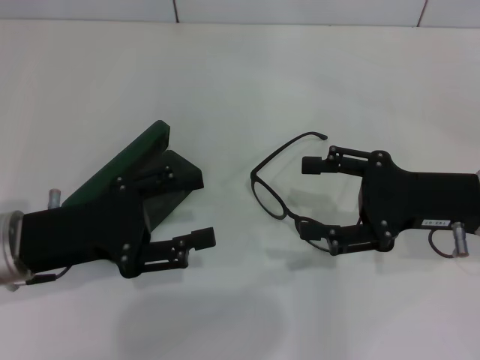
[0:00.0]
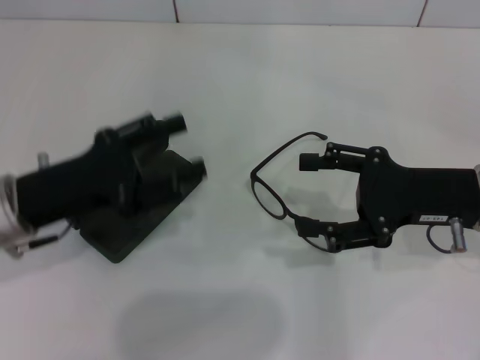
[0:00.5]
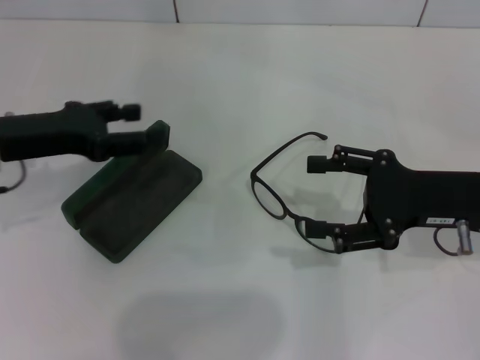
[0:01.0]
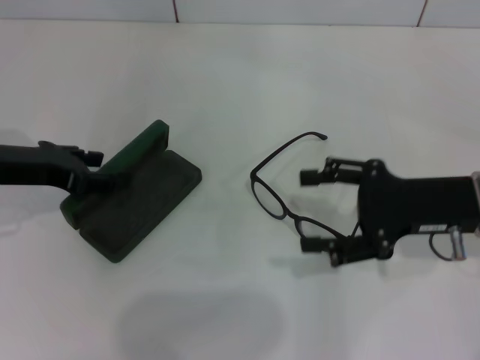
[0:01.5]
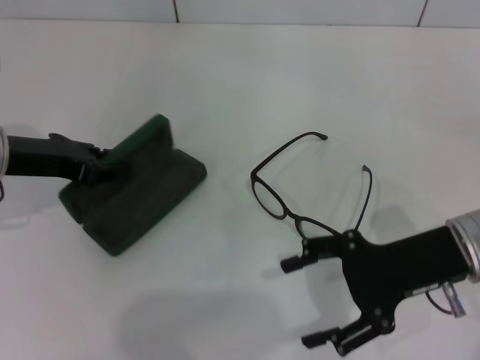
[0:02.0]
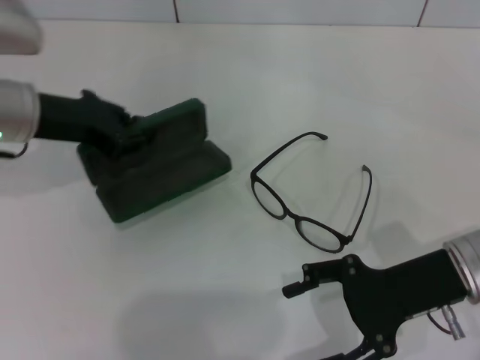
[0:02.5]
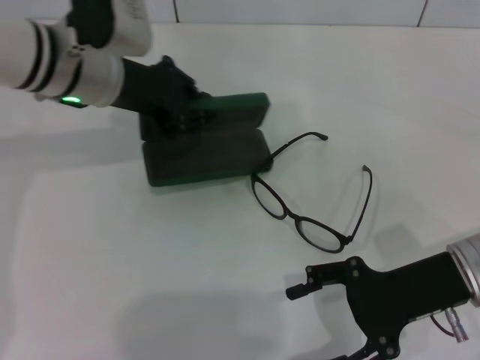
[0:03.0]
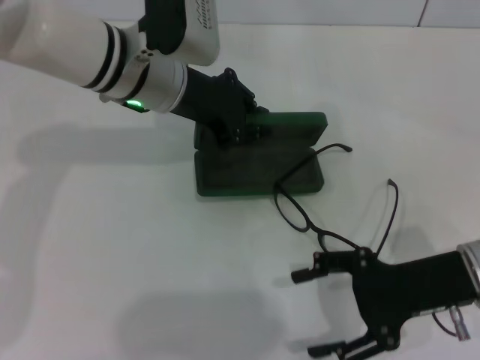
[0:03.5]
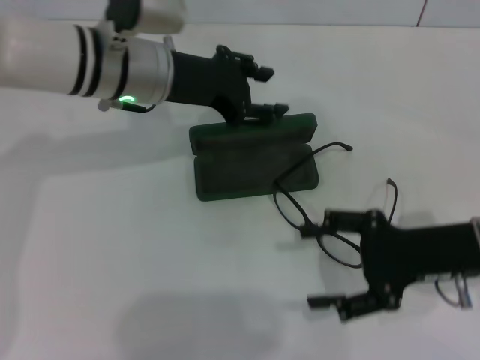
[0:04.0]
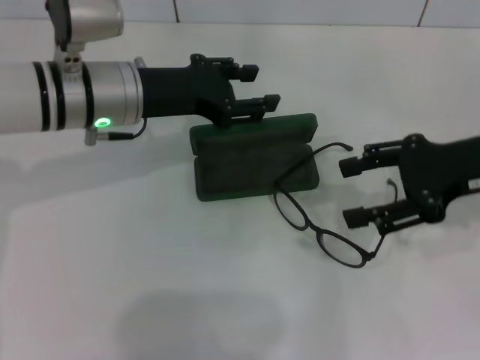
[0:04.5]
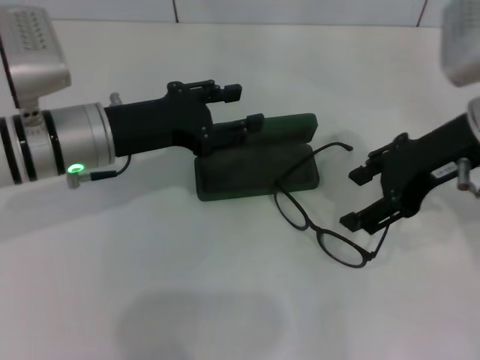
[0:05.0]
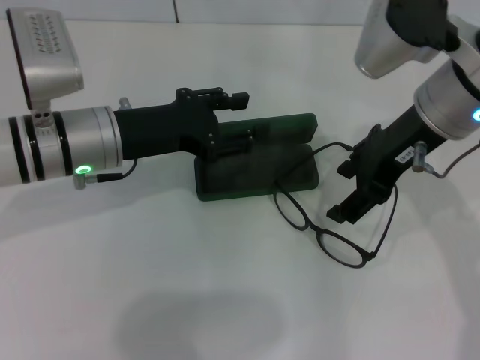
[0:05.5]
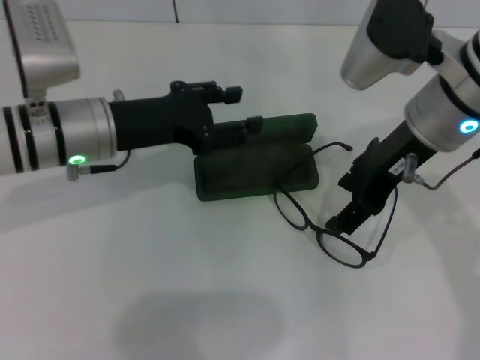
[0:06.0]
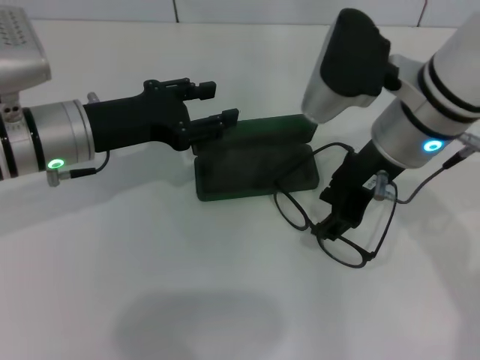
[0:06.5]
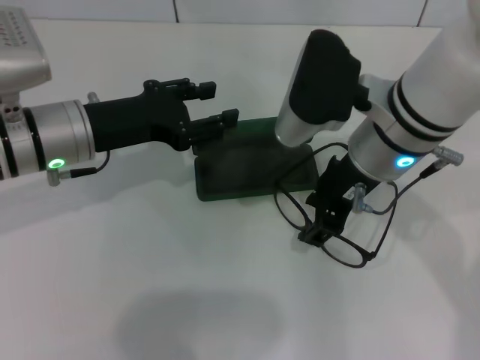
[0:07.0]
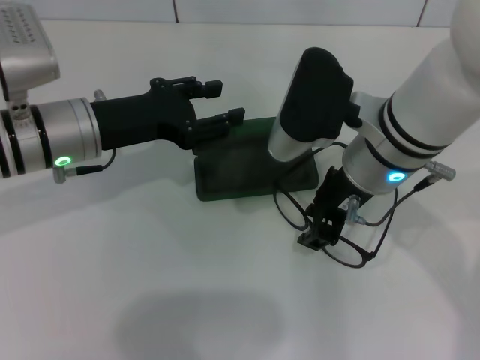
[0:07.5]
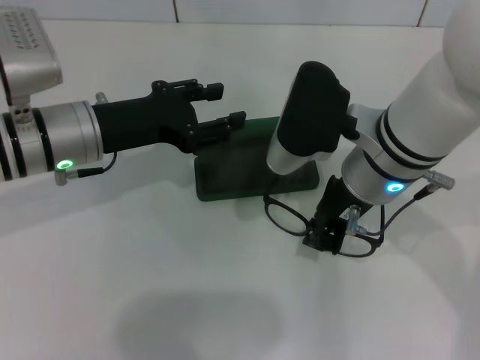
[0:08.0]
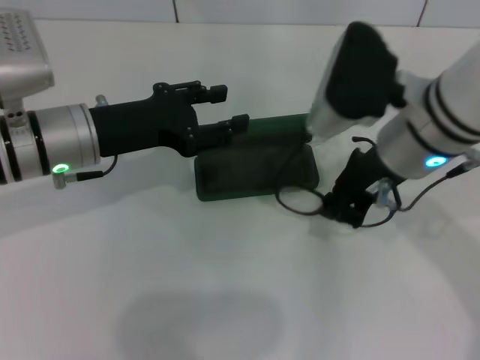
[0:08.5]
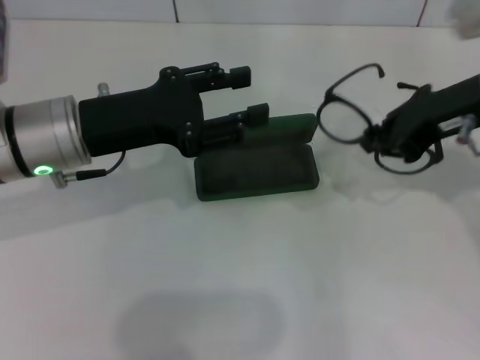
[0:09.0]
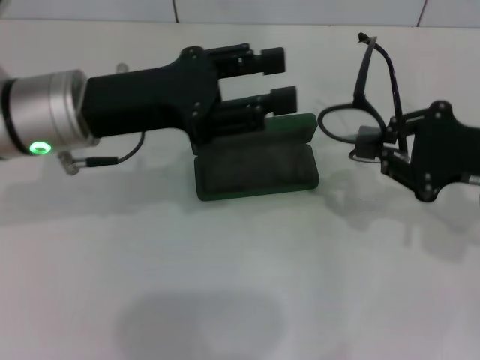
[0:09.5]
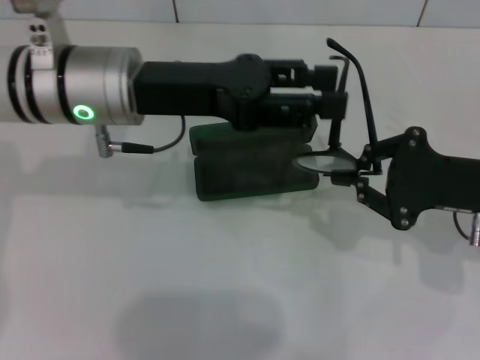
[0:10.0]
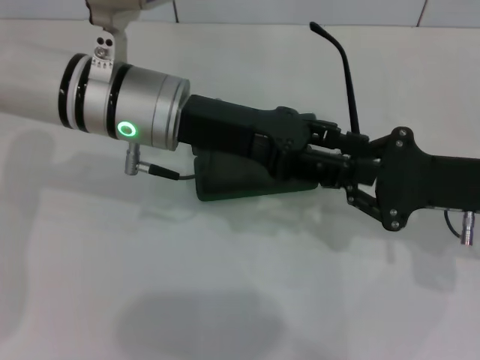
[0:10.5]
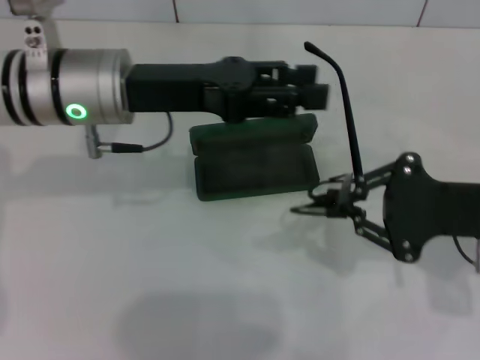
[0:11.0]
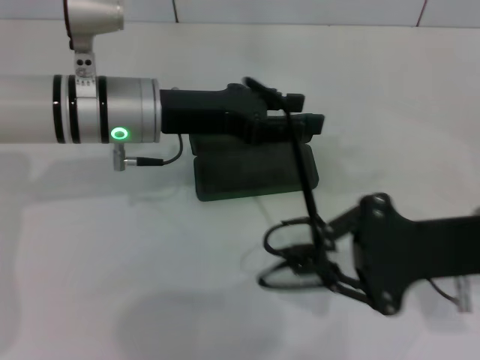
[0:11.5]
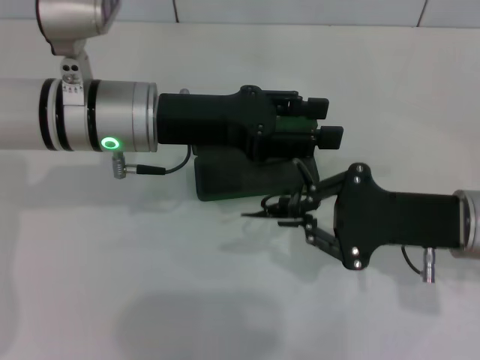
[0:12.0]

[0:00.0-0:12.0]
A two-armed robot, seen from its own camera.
Step, 0:00.0 to 0:02.0: Grab the glasses case with your left hand.
Step, 0:02.5 to 0:04.0: Place the glasses case in the center of the table with your left hand.
Step, 0:04.5 to 0:08.0: Grab the eyeglass frame with your right hand.
0:00.0 to 0:02.0: The left gripper shifts approximately 10 cm forward, and closes.
0:02.0 to 0:04.0: The left gripper heads to the right and forward, covering roughly 15 cm.
0:04.0 to 0:06.0: The left gripper shifts roughly 5 cm backward and to the left, and opens. The right gripper travels upward, to the left and forward by approximately 15 cm.
0:06.0 to 0:08.0: The right gripper heads to the left, covering some 5 cm, and closes its fingers.
0:08.0 to 0:10.0: The left gripper travels upward and to the right by roughly 10 cm. Meanwhile the right gripper moves to the right, roughly 15 cm.
0:10.0 to 0:12.0: The right gripper ends up about 5 cm from where it was.

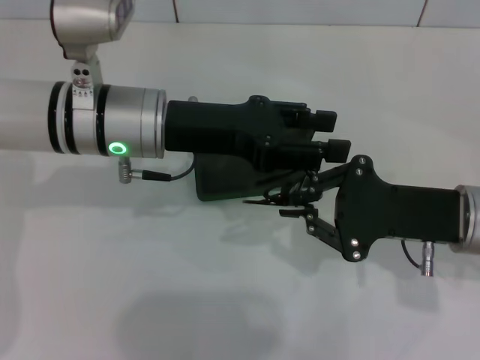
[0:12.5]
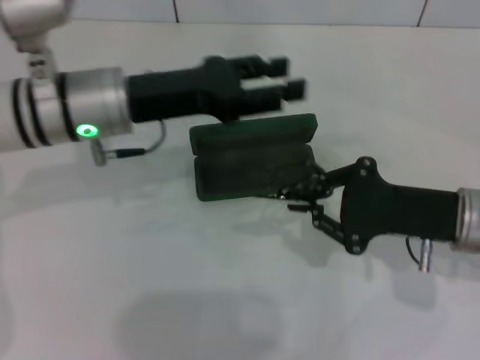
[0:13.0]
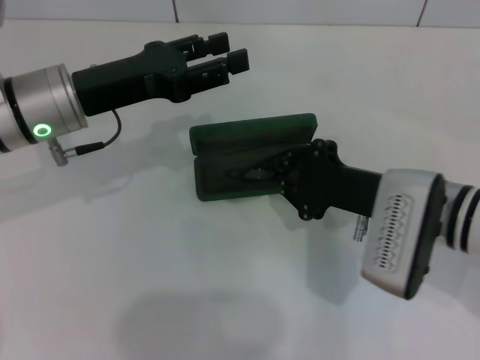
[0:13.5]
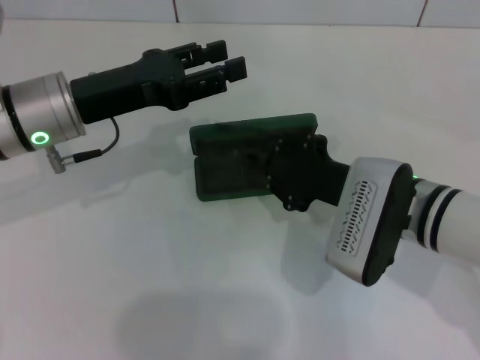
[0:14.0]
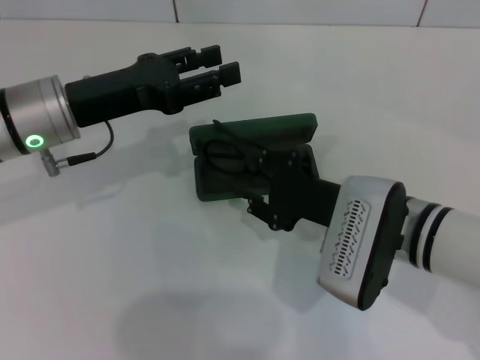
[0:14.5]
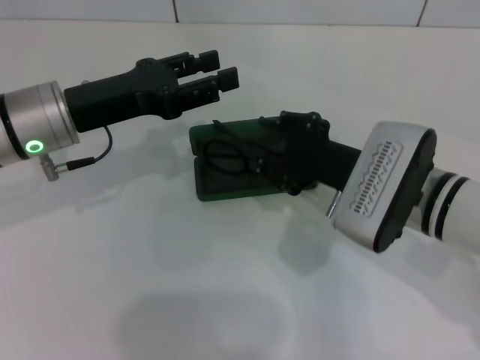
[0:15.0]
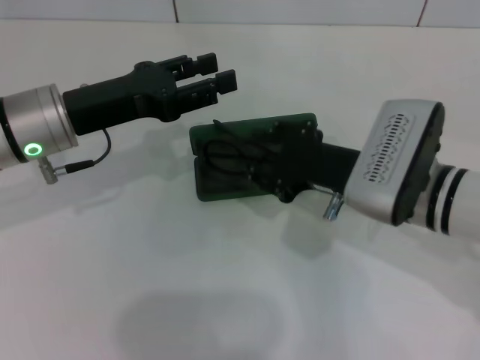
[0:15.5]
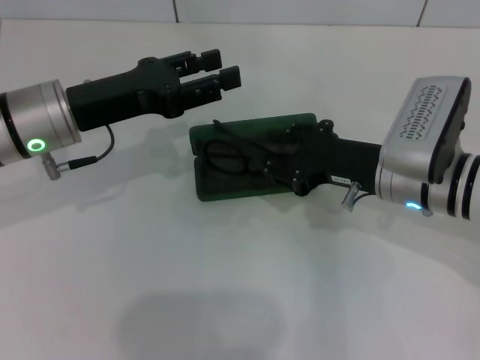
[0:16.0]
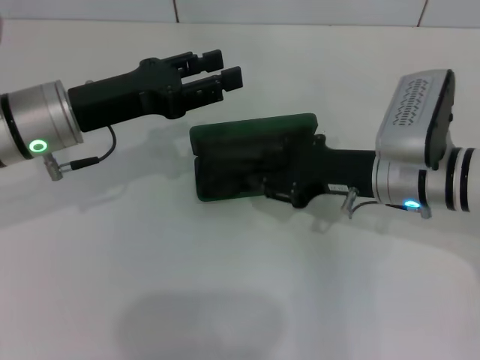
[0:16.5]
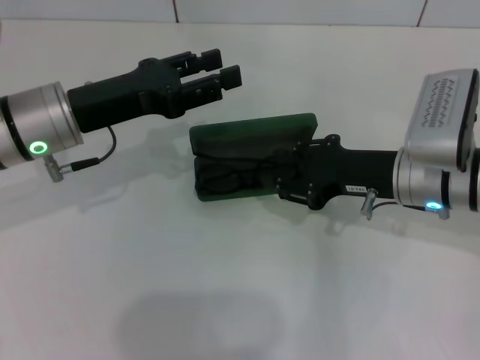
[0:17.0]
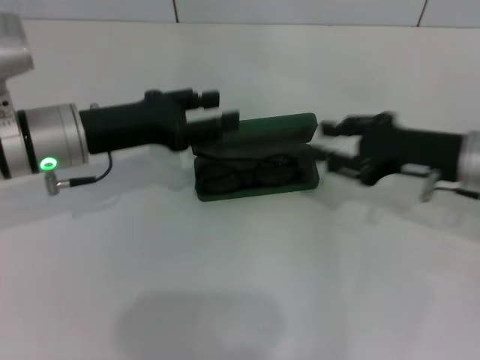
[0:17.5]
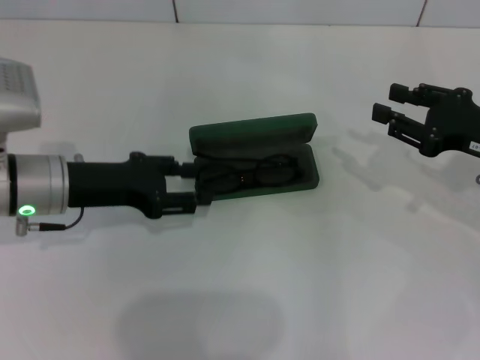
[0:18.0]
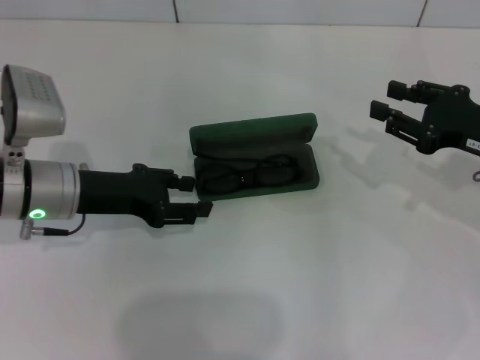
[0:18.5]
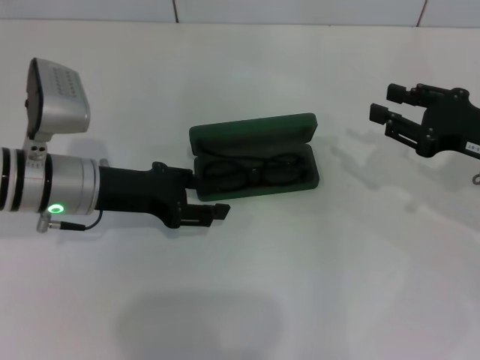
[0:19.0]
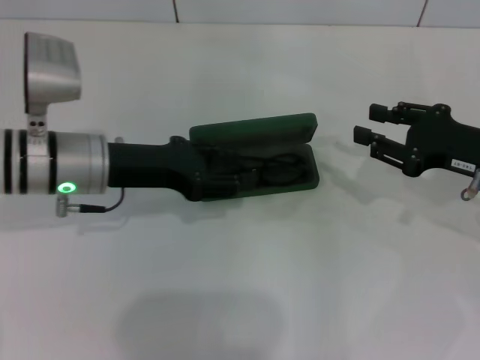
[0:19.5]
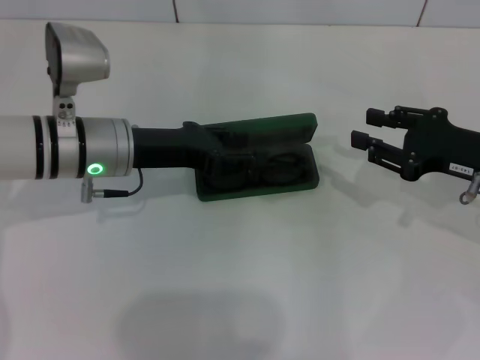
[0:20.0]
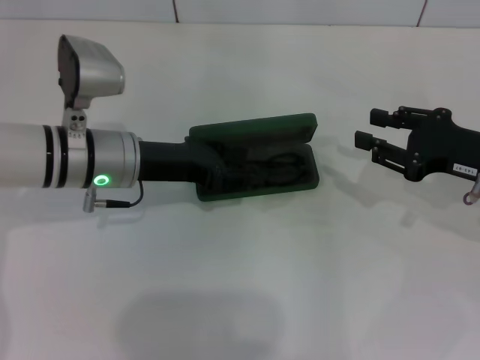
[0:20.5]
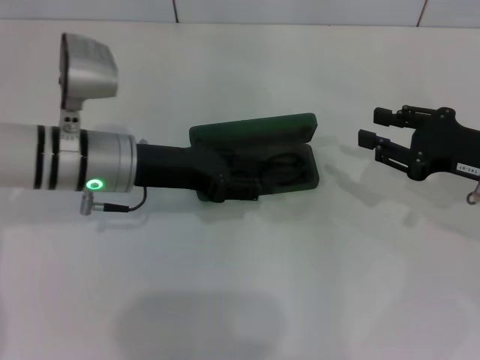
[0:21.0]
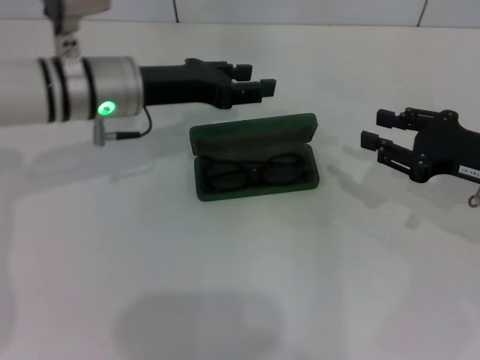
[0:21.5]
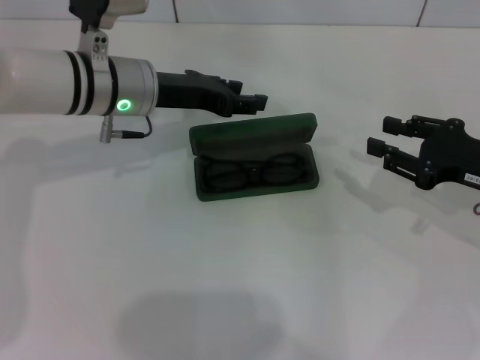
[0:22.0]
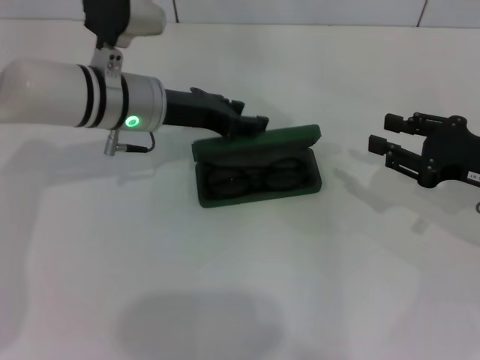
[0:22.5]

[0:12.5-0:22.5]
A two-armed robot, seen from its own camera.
Step, 0:13.0 to 0:16.0: Put the glasses into the case with your right hand.
0:12.5 to 0:14.5: The grippers both shift to the left by about 10 cm. The right gripper opens.
0:14.5 to 0:16.5: The right gripper goes approximately 5 cm forward.
0:16.5 to 0:18.5: The left gripper travels downward by about 5 cm. The right gripper heads to the right, covering about 15 cm.
0:18.5 to 0:20.5: The left gripper shifts roughly 5 cm to the right.
0:20.5 to 0:22.5: The left gripper moves forward, some 5 cm.

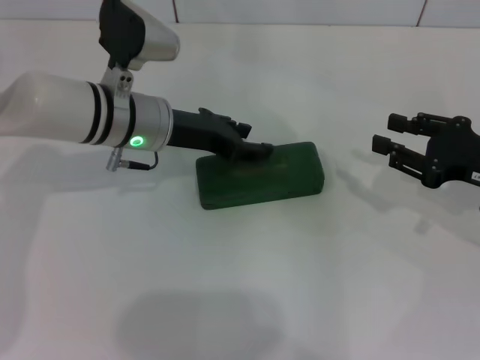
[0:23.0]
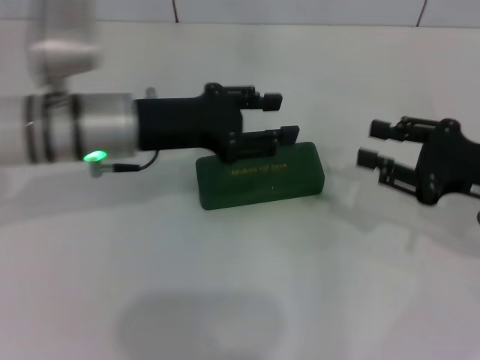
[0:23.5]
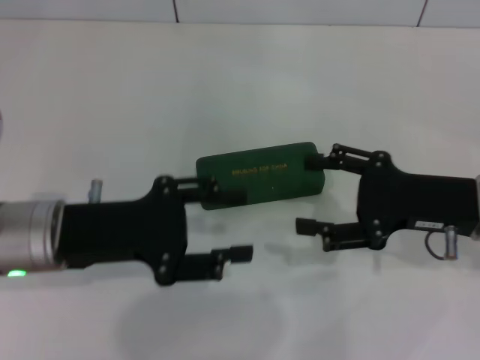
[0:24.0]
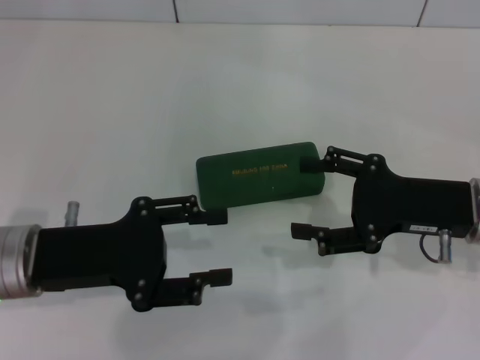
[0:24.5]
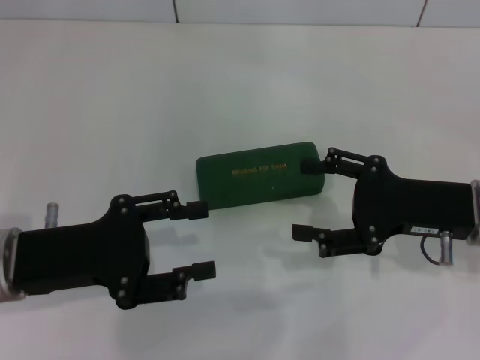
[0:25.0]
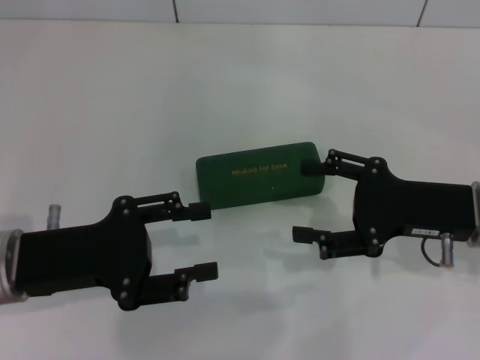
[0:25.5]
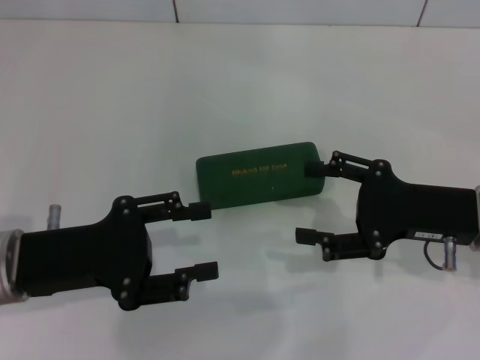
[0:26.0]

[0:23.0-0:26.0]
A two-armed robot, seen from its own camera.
0:23.0 to 0:24.5: The right gripper goes roughly 5 cm to the left, and opens, while the left gripper travels backward and to the left by approximately 20 cm.
0:24.5 to 0:26.0: The grippers stay close to where they were, moving slightly.
